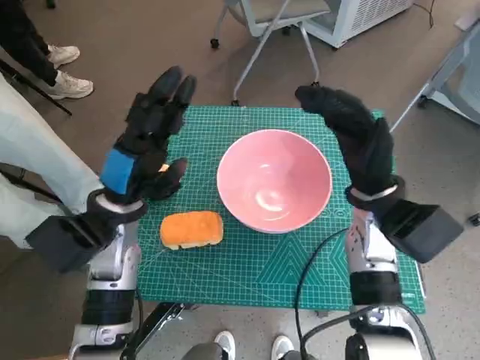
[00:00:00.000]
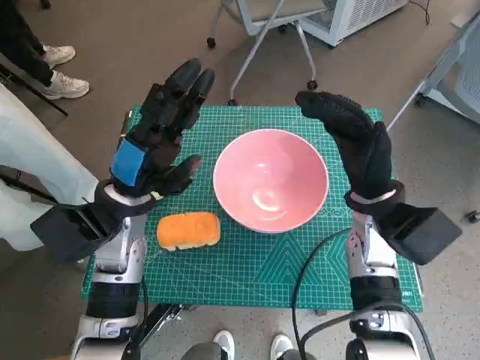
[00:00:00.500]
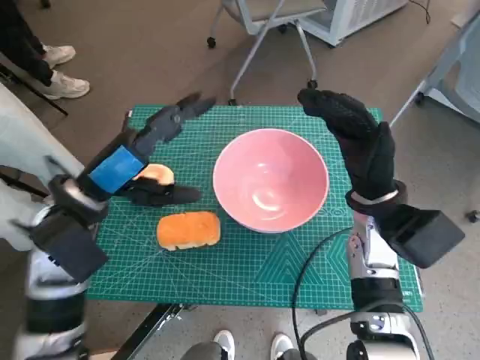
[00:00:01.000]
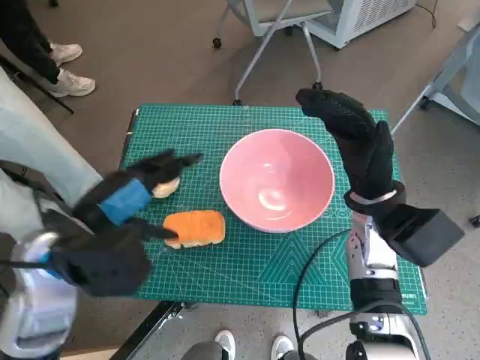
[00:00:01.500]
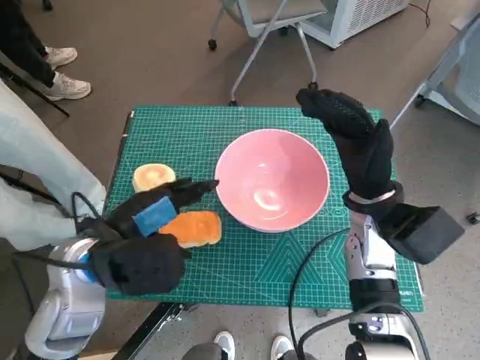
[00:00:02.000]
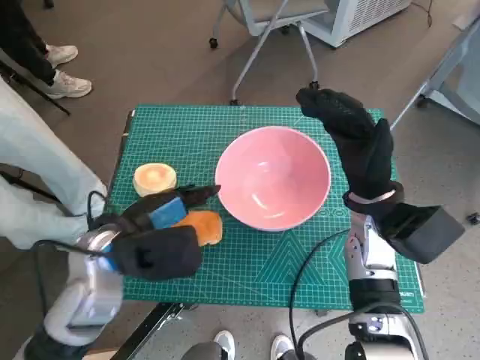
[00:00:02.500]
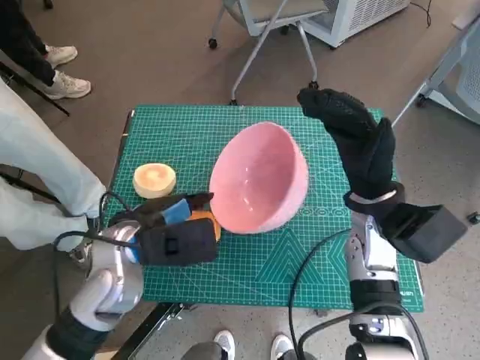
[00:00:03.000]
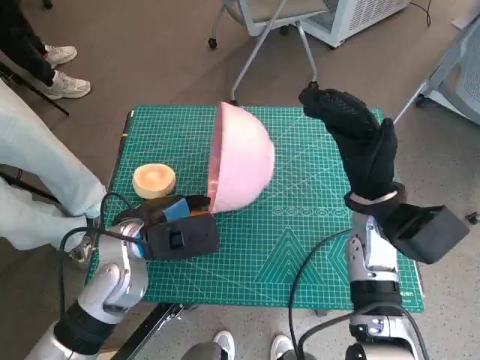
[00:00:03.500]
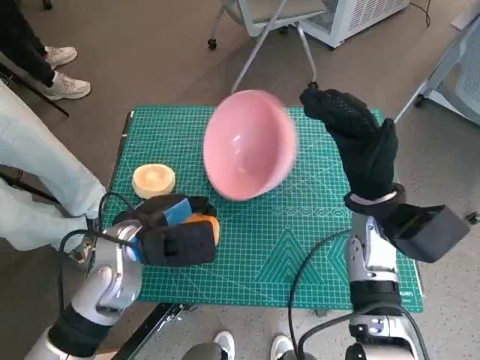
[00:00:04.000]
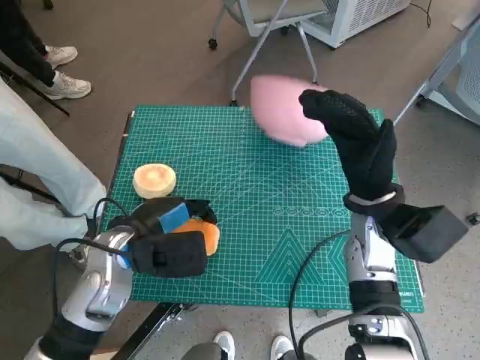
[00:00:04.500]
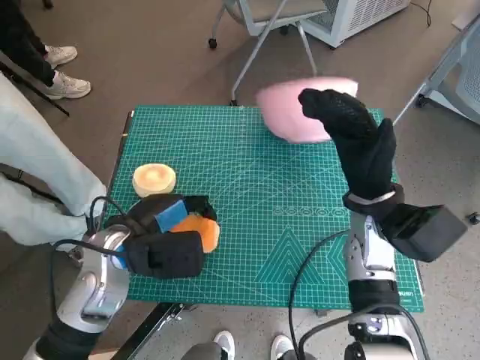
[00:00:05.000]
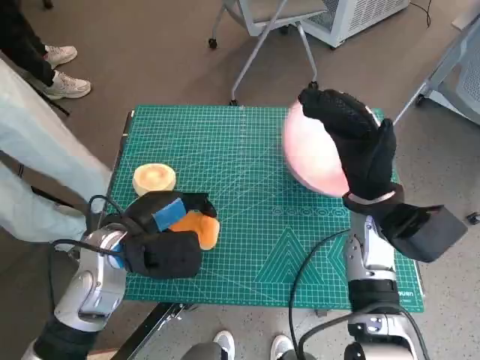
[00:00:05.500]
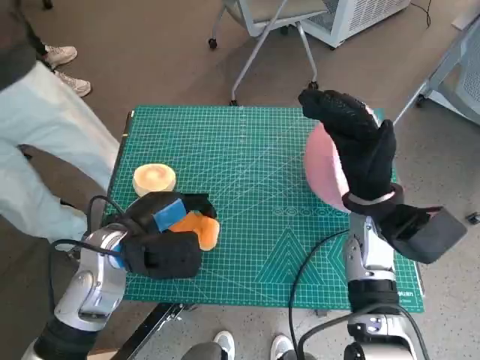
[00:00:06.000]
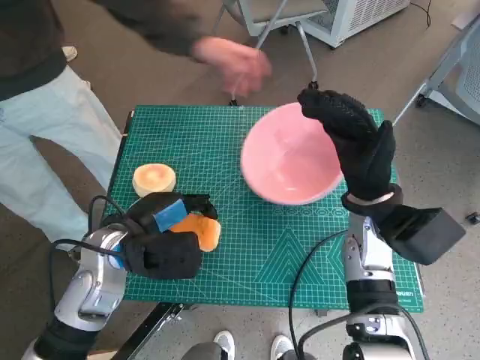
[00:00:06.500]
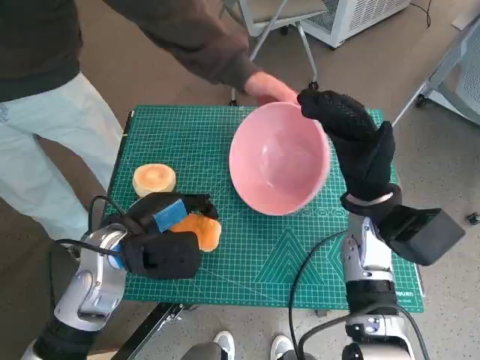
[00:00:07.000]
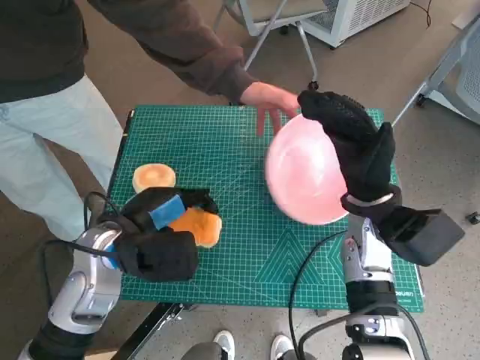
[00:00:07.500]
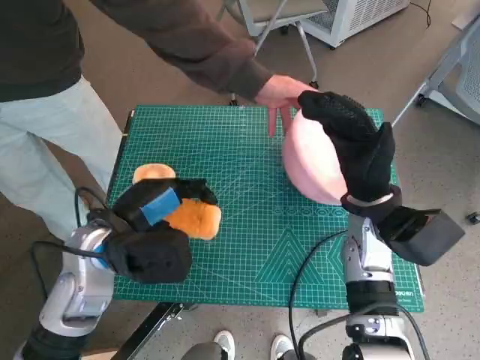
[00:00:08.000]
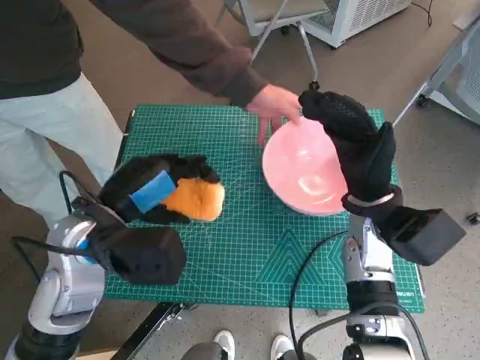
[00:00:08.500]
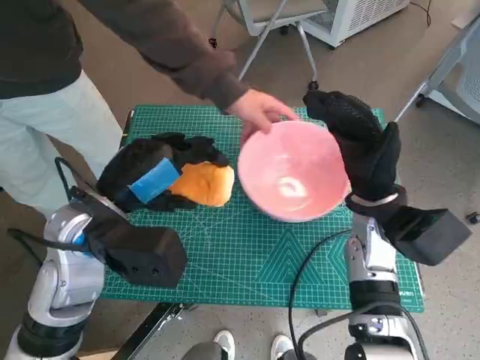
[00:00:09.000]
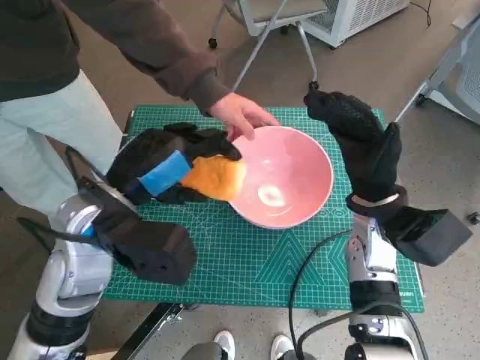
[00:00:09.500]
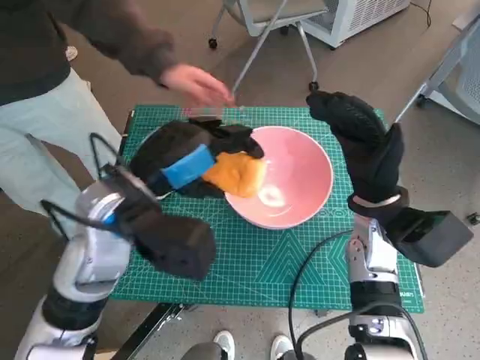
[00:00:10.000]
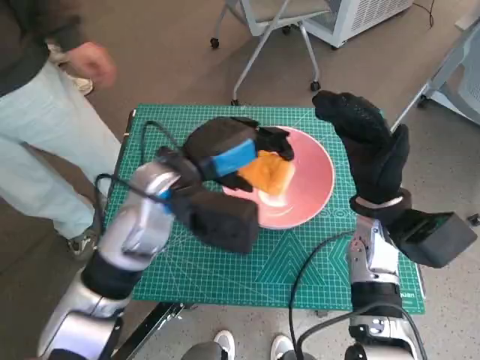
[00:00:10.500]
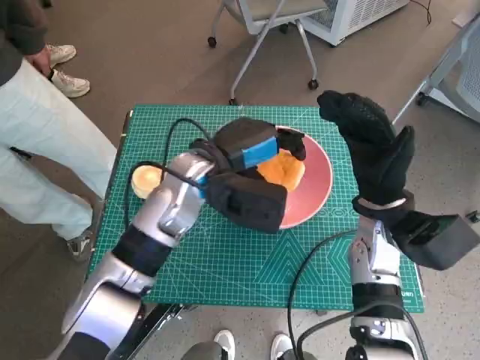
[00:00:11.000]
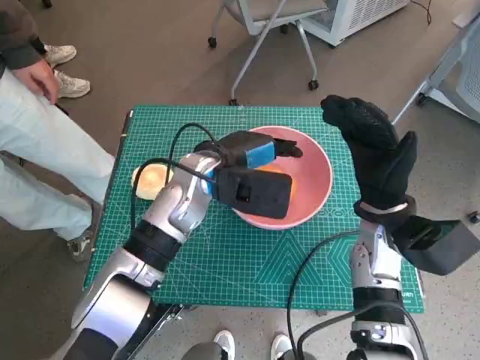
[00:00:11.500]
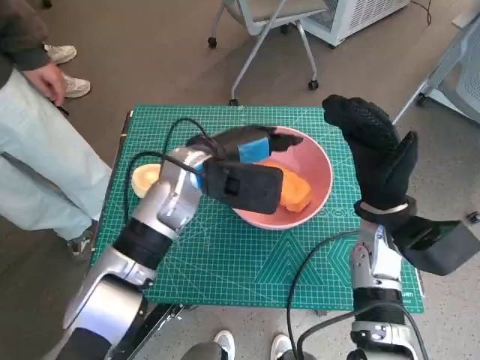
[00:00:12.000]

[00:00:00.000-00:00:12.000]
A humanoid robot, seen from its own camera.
Task of the whole recording: Push the bowl into the center of the table and put the bread into the bowl.
Step, 00:00:00.000 to 00:00:03.500: Grasp the long bread with left hand.
00:00:00.000 to 00:00:02.000: The left hand is displaced backward by roughly 5 cm.
00:00:02.000 to 00:00:04.000: The left hand goes approximately 5 cm downward.
00:00:08.000 to 00:00:10.000: The left hand moves upward, some 5 cm.
00:00:10.000 to 00:00:12.000: The left hand goes approximately 10 cm forward and to the right.

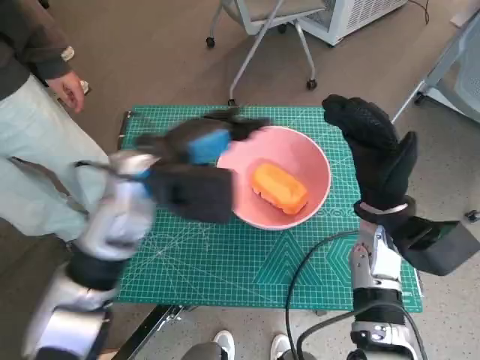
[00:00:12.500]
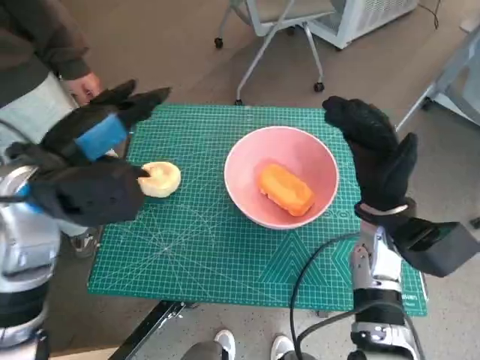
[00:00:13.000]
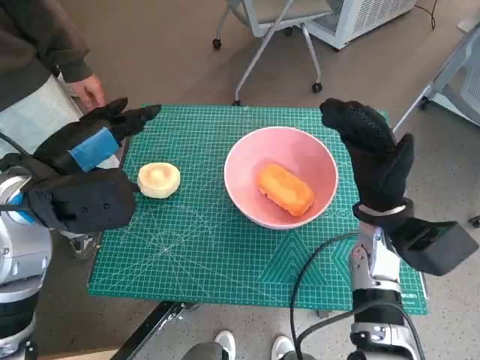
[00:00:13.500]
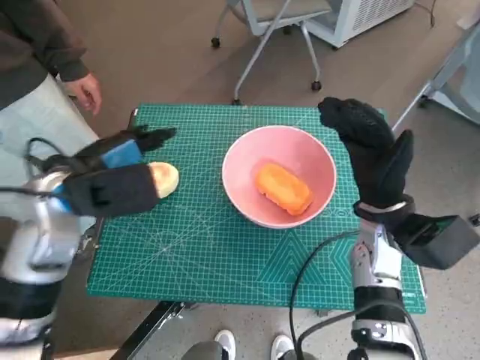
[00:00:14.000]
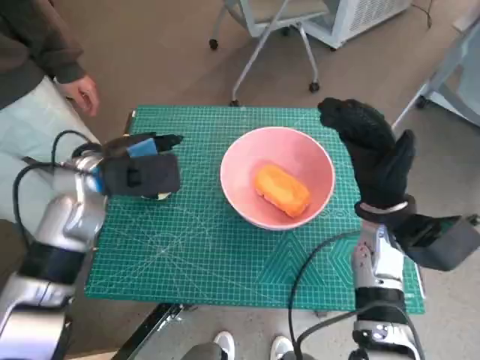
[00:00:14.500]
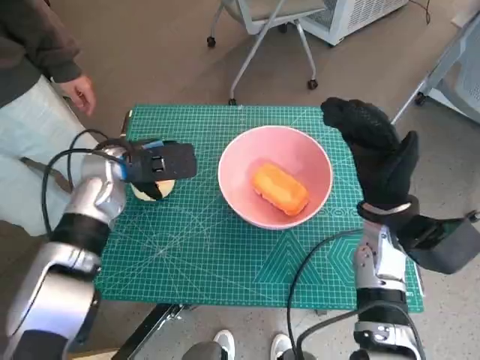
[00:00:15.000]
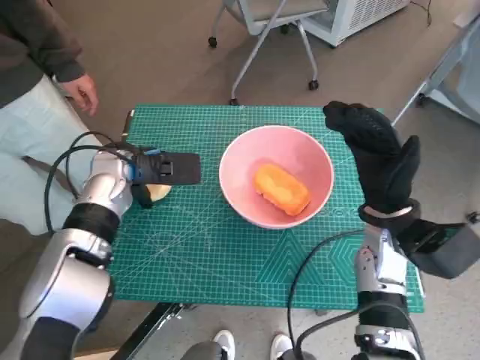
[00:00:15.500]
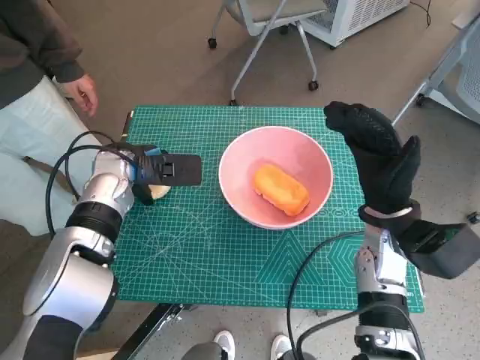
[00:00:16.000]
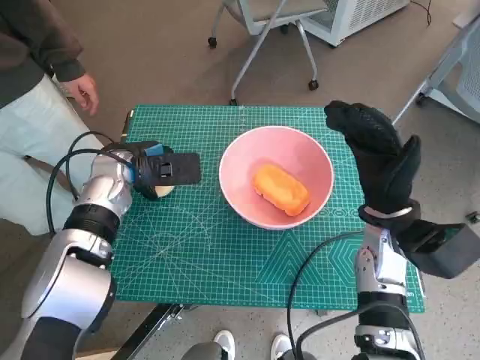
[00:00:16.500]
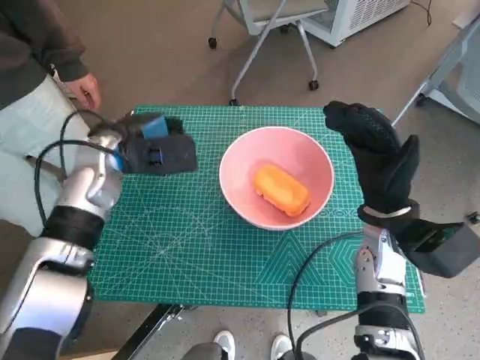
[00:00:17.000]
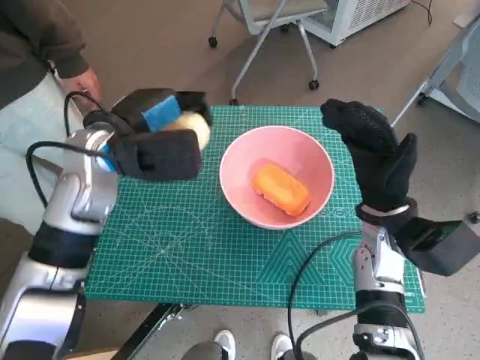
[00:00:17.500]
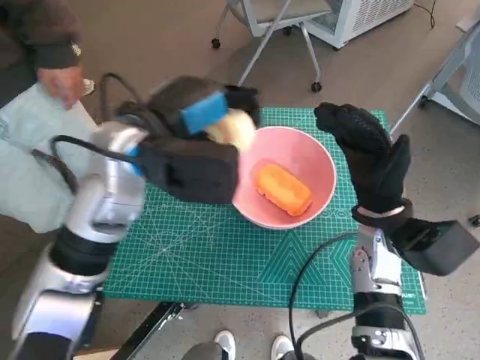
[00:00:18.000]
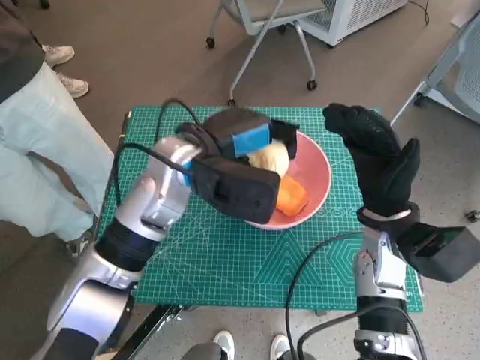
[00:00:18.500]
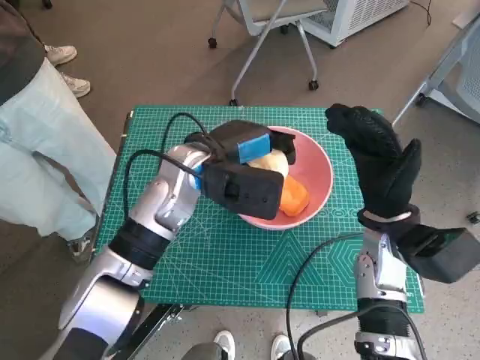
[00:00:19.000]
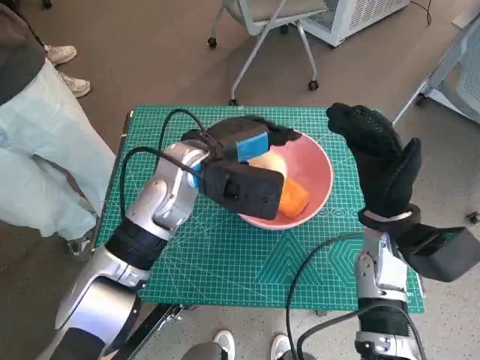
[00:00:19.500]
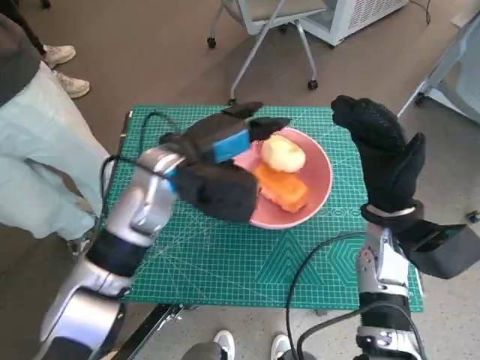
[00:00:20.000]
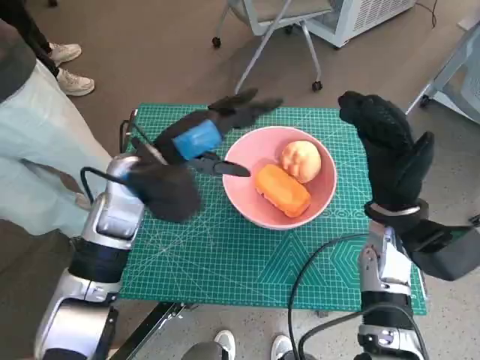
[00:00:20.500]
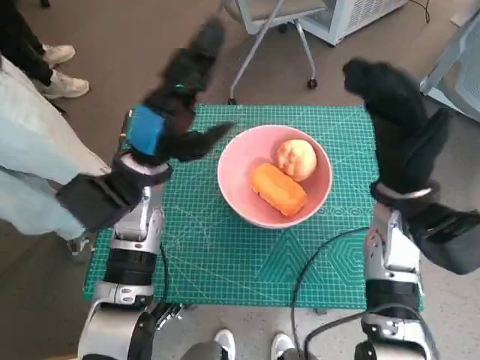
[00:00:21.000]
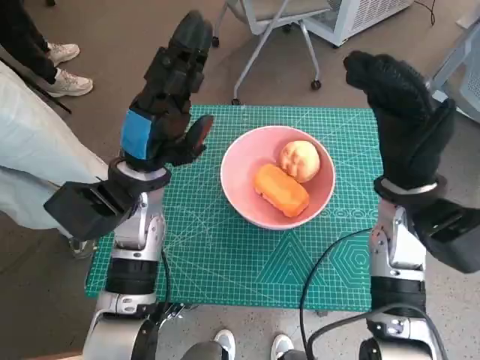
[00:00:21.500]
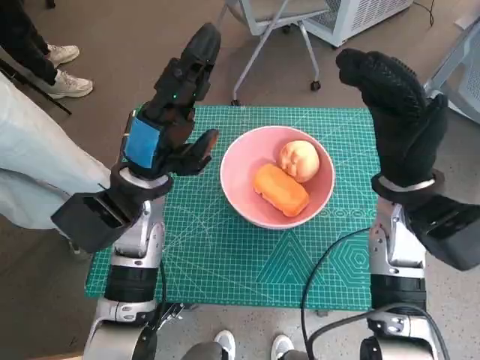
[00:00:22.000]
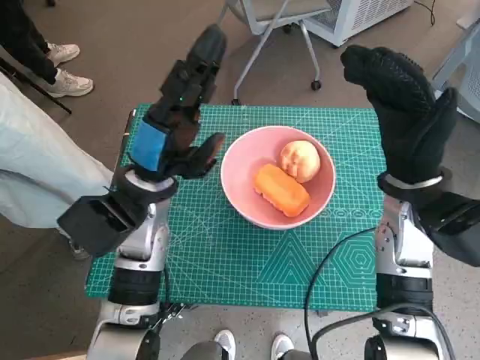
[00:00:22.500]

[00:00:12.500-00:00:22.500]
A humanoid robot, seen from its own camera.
Task of the whole recording: Push the bowl into the center of the table and put the bread into the bowl.
Step, 00:00:12.500 to 00:00:16.000: Grasp the round bread with left hand.
Step, 00:00:16.500 to 00:00:20.000: Place the round bread in pink bowl with left hand.
00:00:12.500 to 00:00:14.500: The left hand heads to the left, covering some 10 cm.
00:00:14.500 to 00:00:16.500: The left hand changes place by approximately 5 cm.
00:00:16.500 to 00:00:18.500: The left hand is displaced to the right and upward by about 15 cm.
00:00:18.500 to 00:00:20.500: The left hand shifts some 5 cm to the left.
00:00:20.500 to 00:00:22.500: The right hand moves upward, roughly 5 cm.

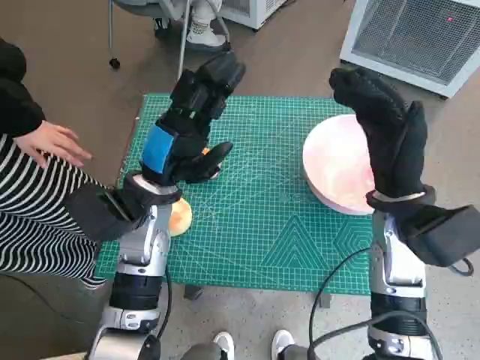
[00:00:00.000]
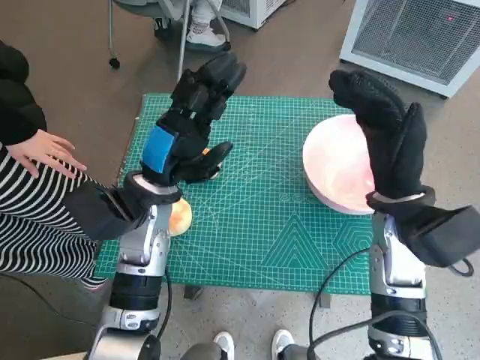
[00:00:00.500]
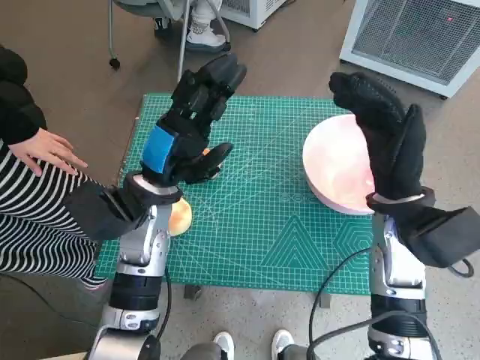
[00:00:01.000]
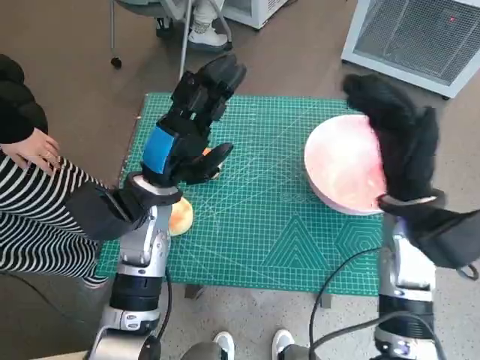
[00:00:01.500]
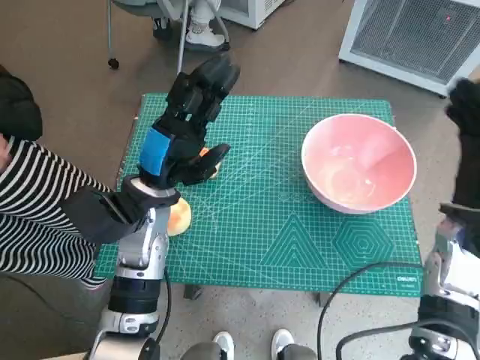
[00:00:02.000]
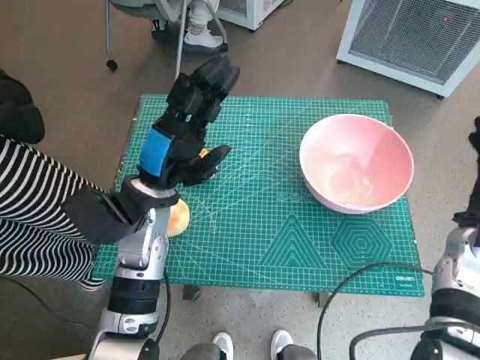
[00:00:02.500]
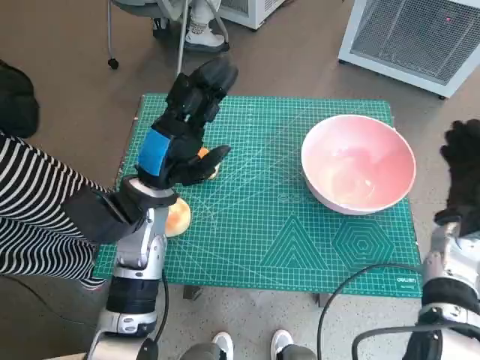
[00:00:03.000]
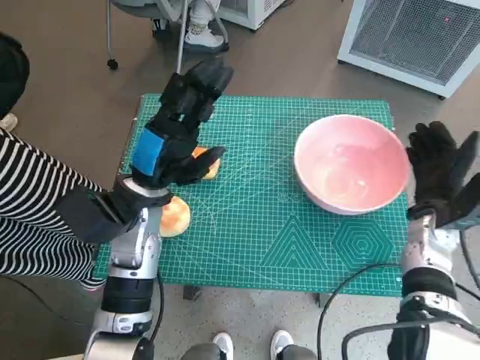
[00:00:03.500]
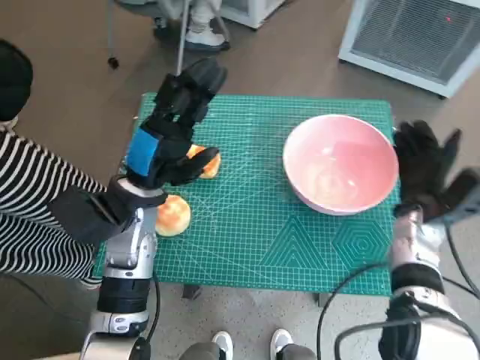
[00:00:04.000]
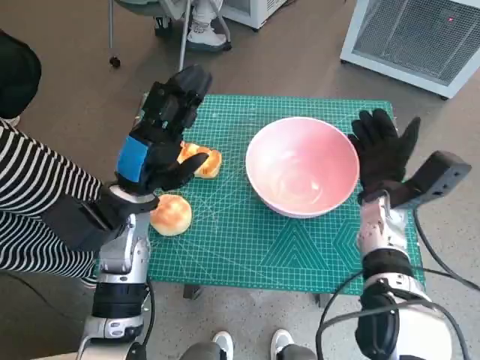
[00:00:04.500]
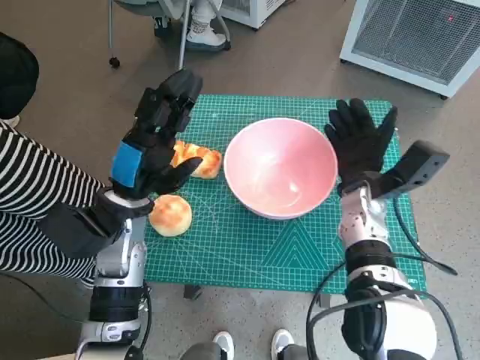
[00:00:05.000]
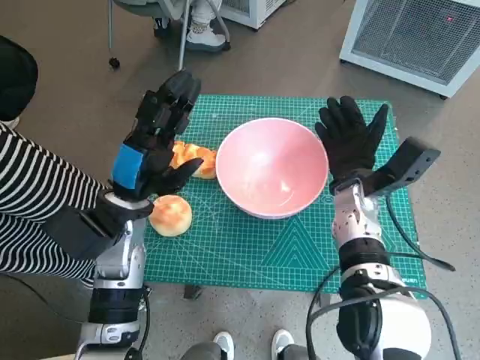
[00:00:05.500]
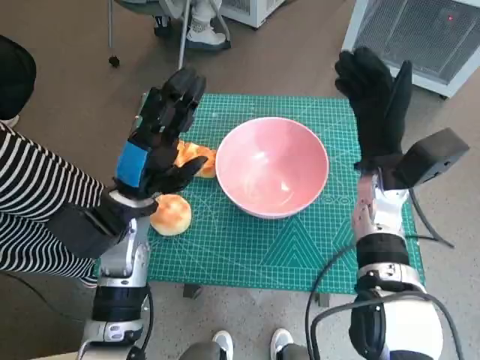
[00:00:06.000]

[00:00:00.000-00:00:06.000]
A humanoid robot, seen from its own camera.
Task of the whole recording: Push the bowl into the center of the table and put the bread into the bowl.
Step, 00:00:00.000 to 00:00:05.500: Move the pink bowl to the center of table with right hand.
00:00:02.000 to 00:00:04.000: The right hand is displaced downward by about 5 cm.
00:00:04.000 to 00:00:06.000: The right hand is displaced to the left by about 10 cm.
